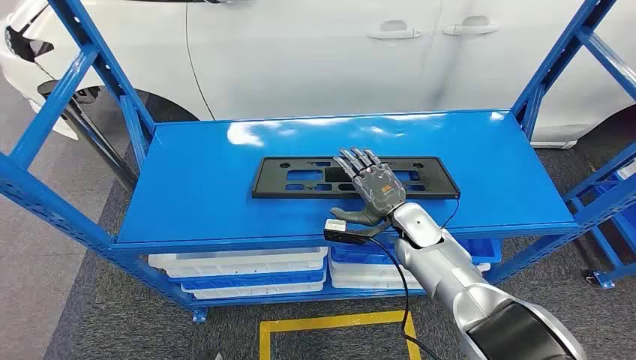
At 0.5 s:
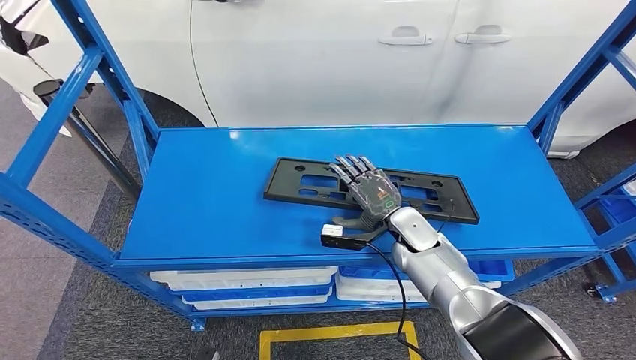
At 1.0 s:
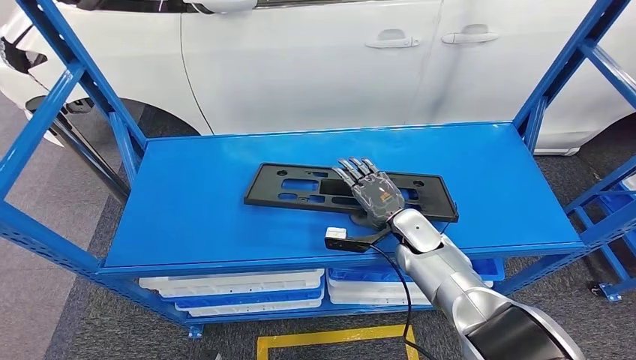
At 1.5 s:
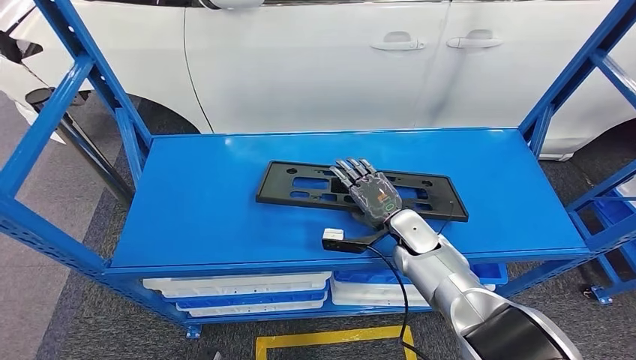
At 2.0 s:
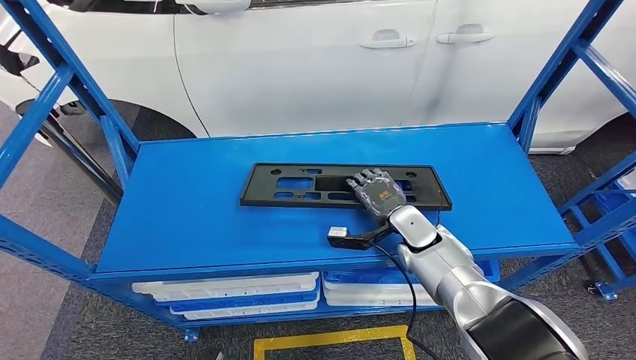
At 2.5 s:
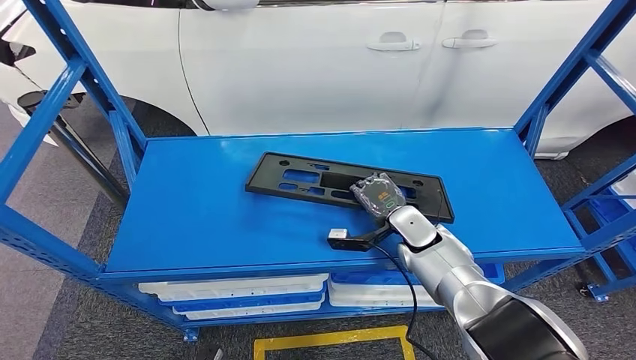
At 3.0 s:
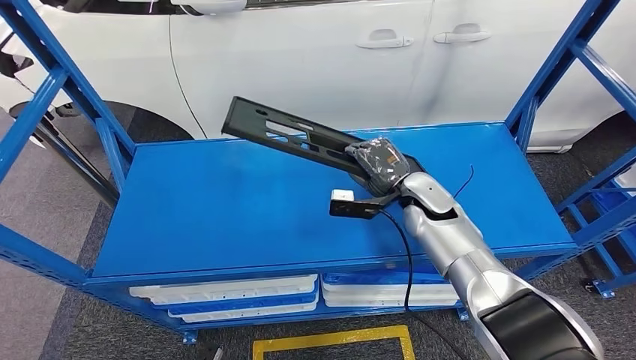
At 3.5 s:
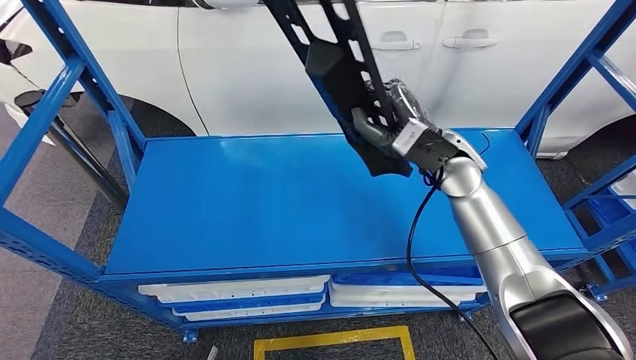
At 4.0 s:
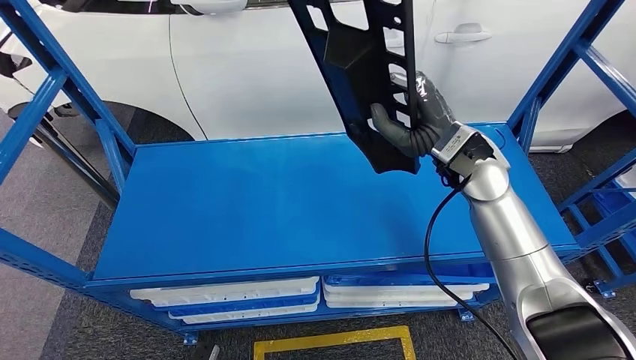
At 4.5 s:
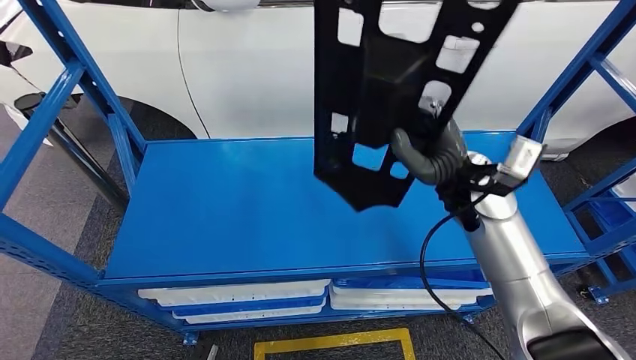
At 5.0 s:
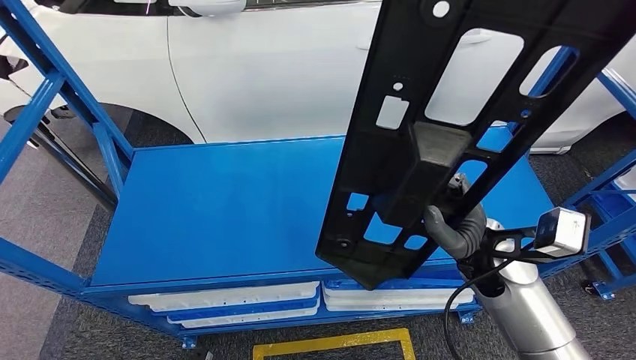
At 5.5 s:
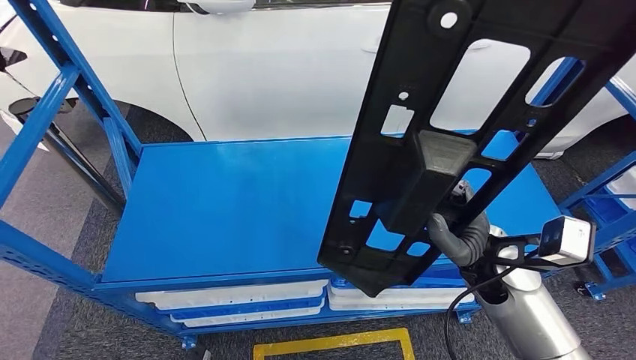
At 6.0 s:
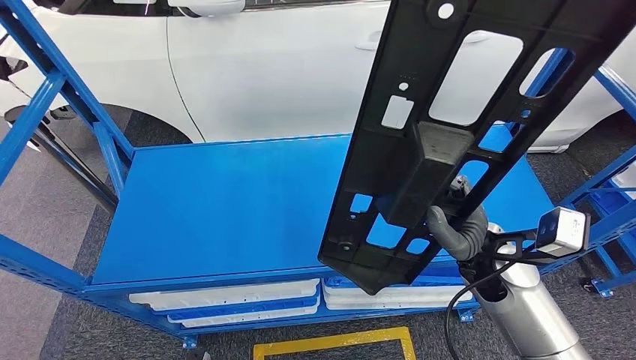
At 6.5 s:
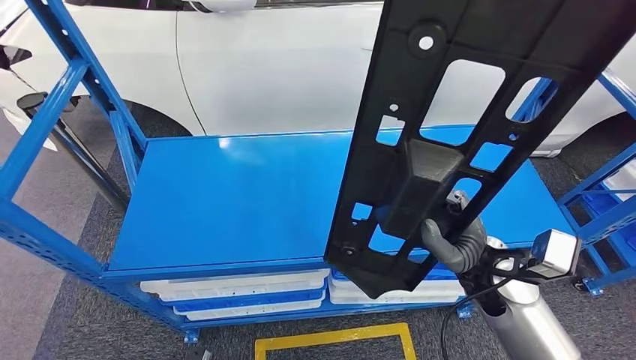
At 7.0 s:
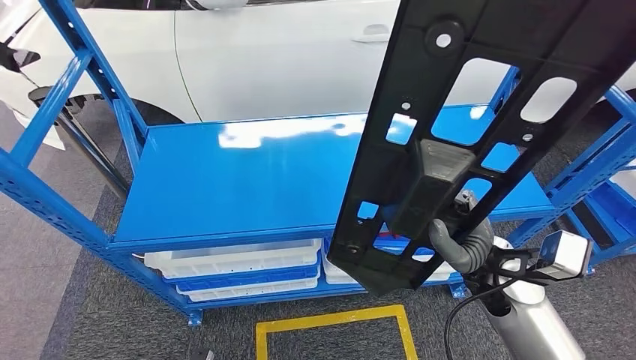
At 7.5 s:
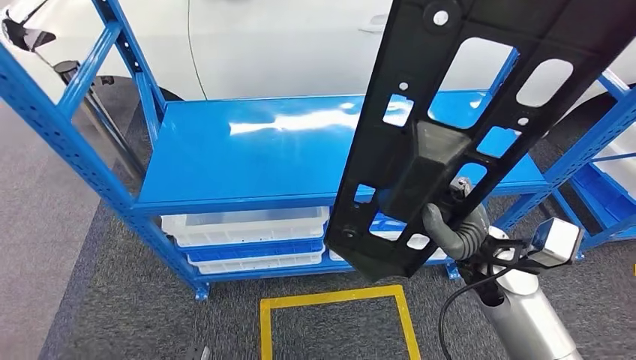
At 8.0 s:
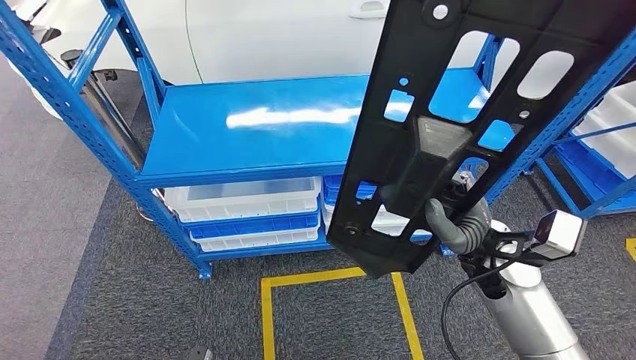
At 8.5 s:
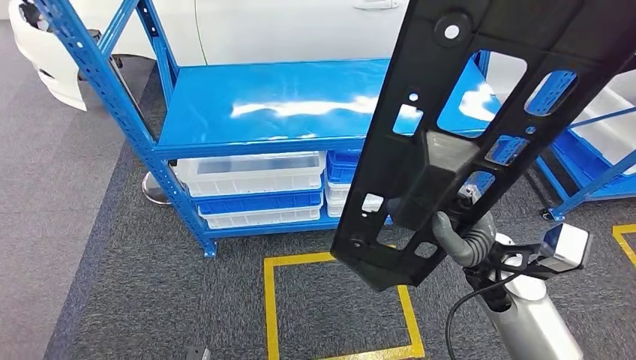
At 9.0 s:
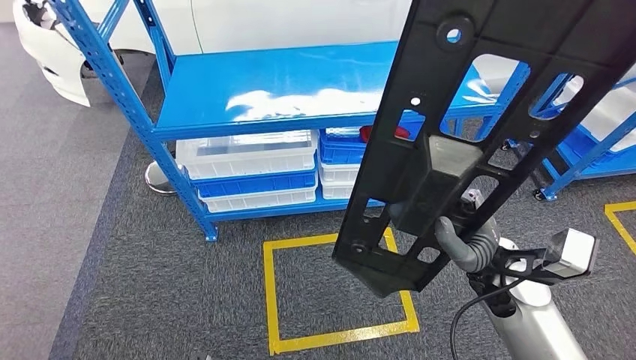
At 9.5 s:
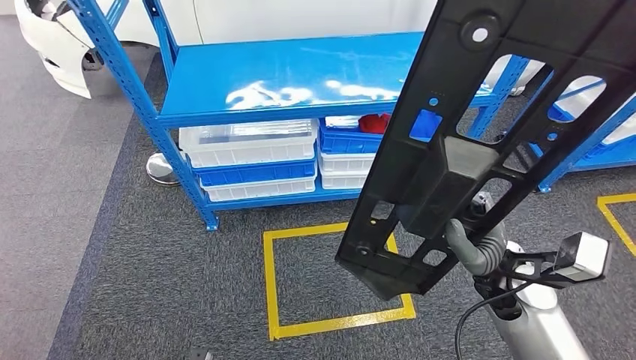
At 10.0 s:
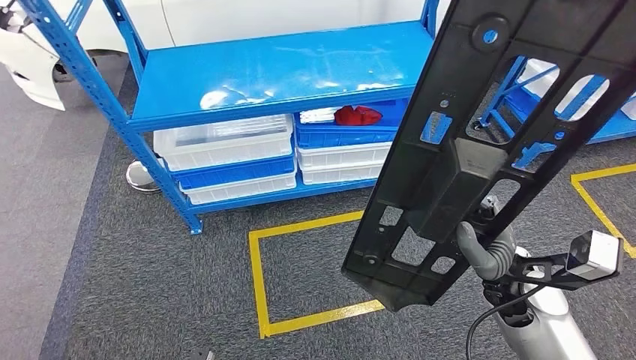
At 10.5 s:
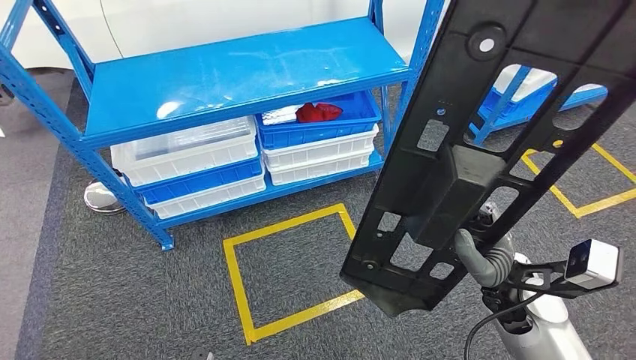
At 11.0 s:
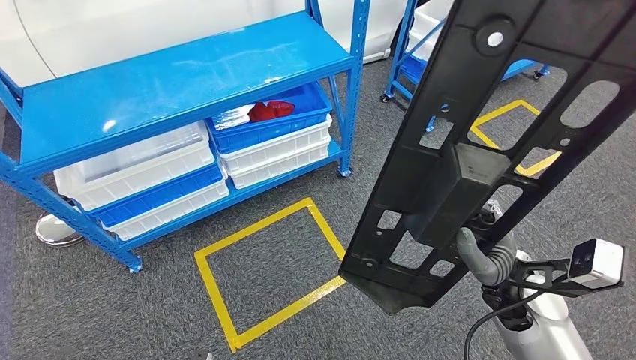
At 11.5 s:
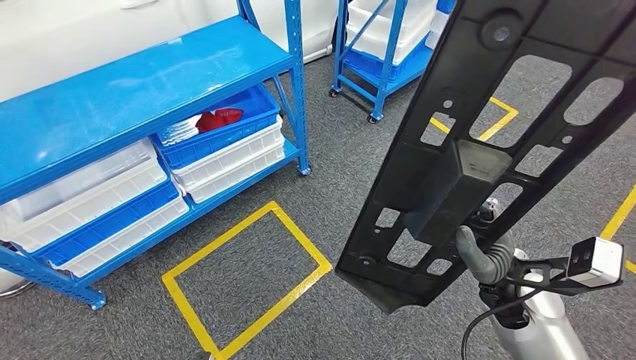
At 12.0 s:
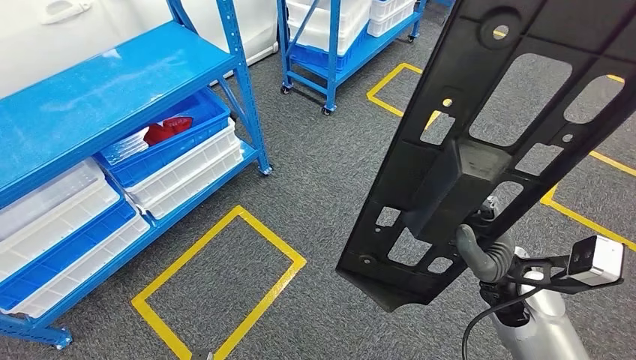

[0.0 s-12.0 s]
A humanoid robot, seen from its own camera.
Step, 0.0 to 5.0 s: Pick up the large material from the shelf.

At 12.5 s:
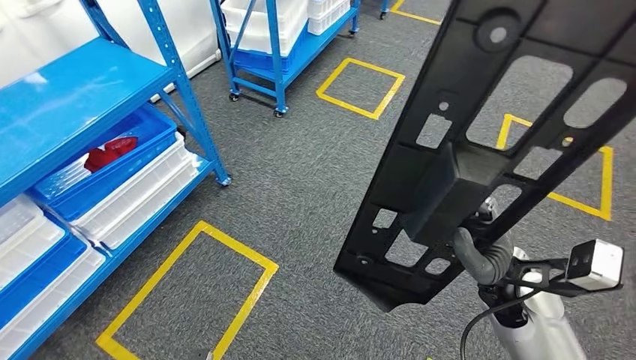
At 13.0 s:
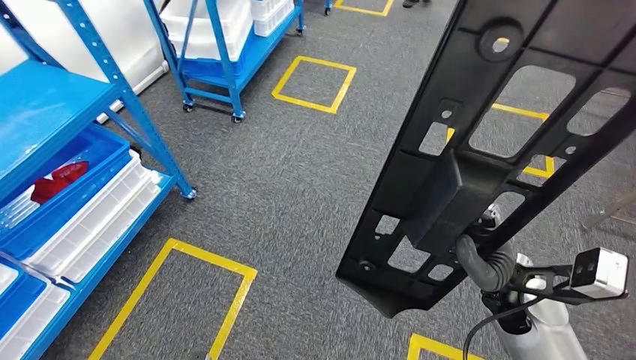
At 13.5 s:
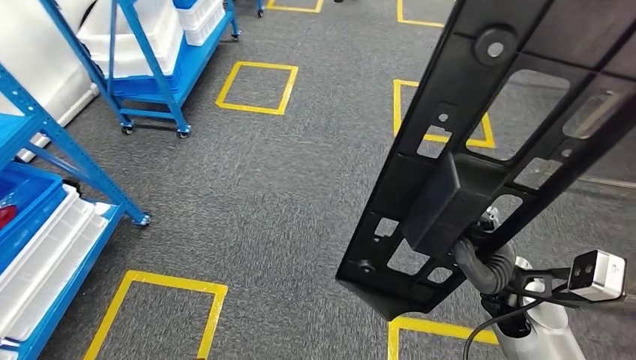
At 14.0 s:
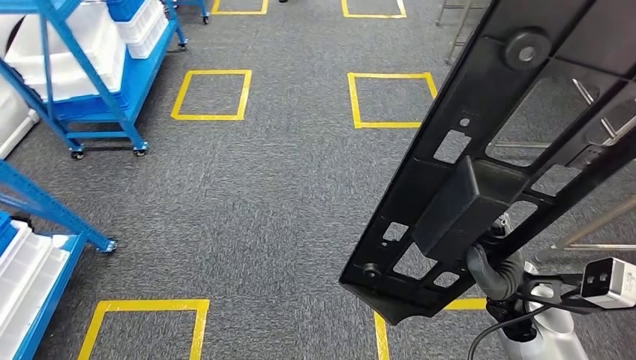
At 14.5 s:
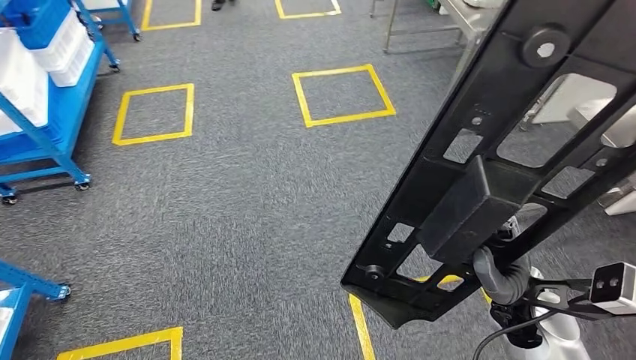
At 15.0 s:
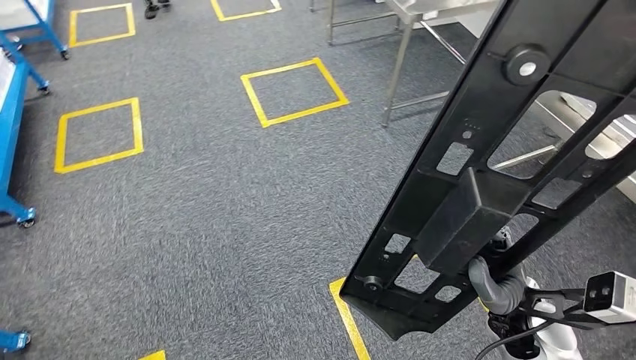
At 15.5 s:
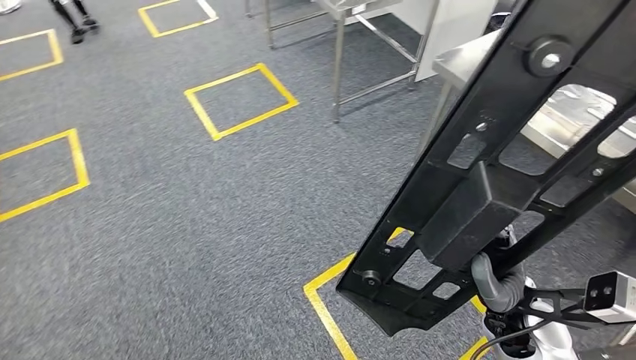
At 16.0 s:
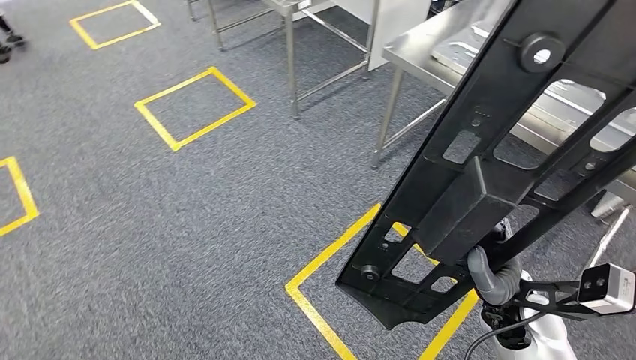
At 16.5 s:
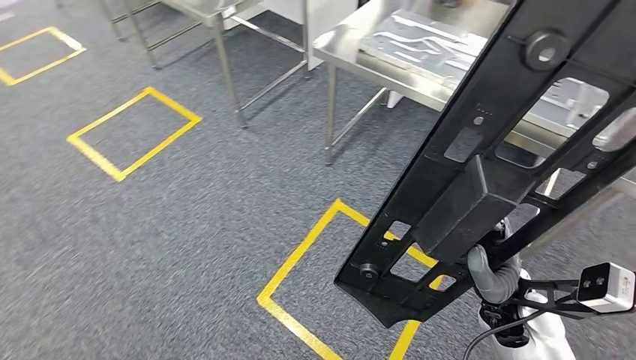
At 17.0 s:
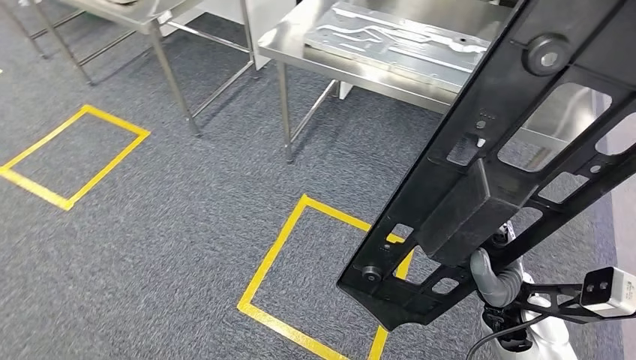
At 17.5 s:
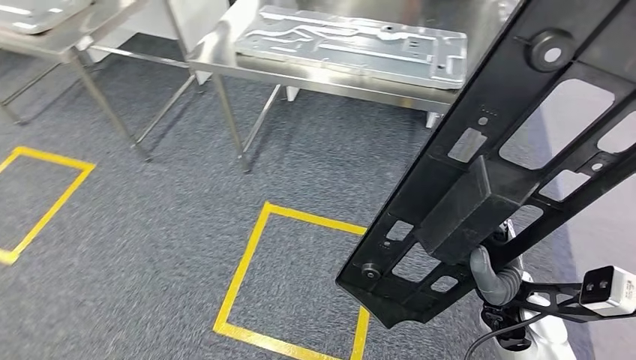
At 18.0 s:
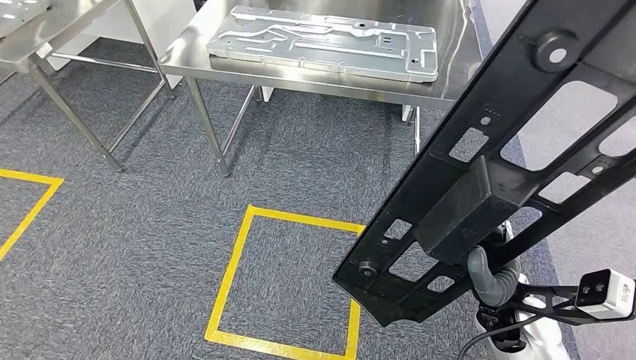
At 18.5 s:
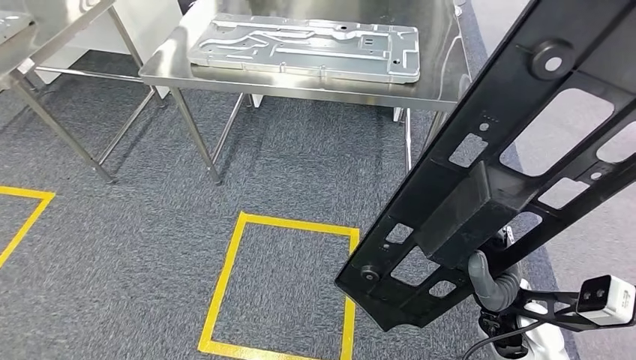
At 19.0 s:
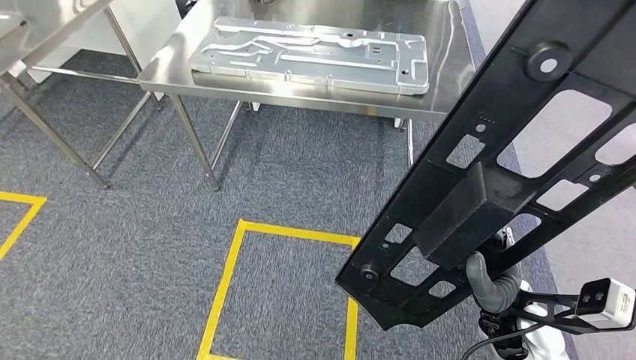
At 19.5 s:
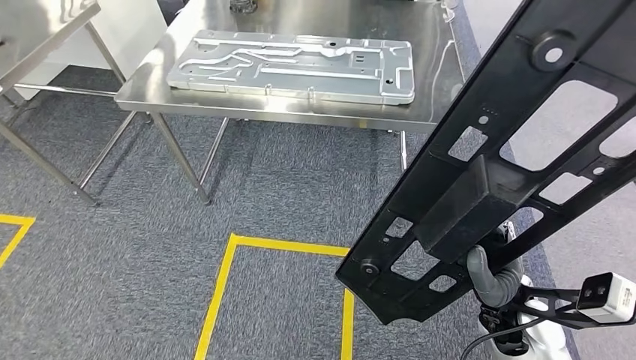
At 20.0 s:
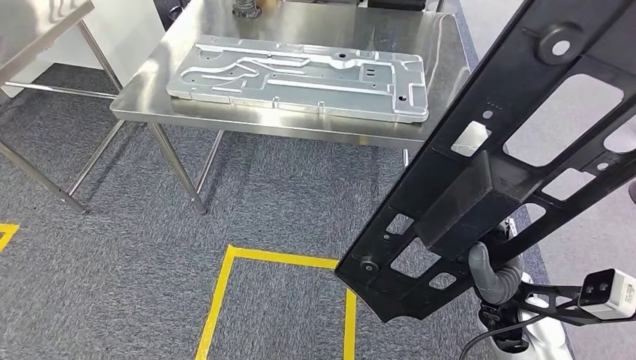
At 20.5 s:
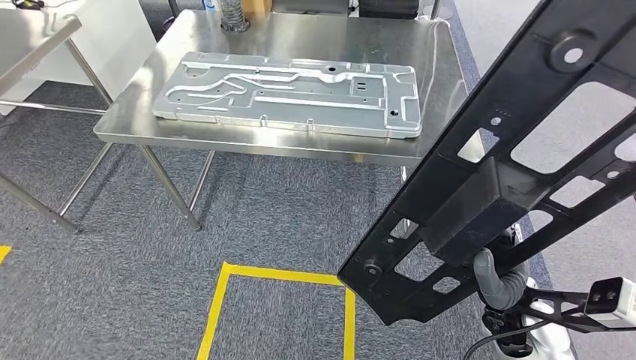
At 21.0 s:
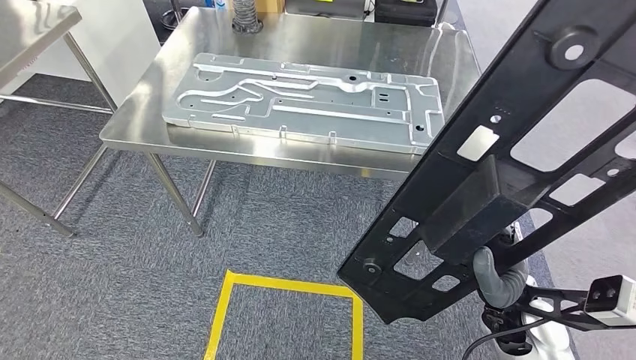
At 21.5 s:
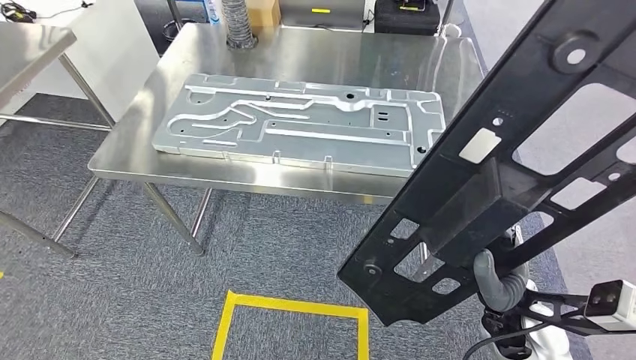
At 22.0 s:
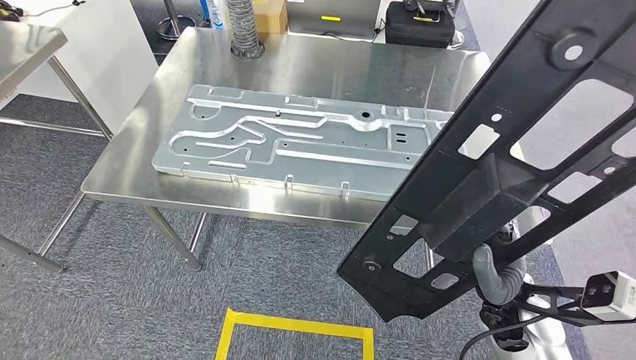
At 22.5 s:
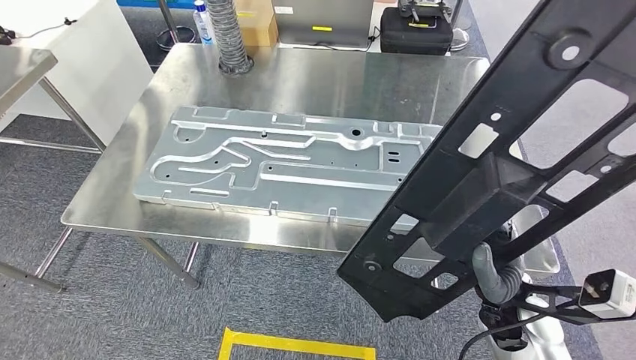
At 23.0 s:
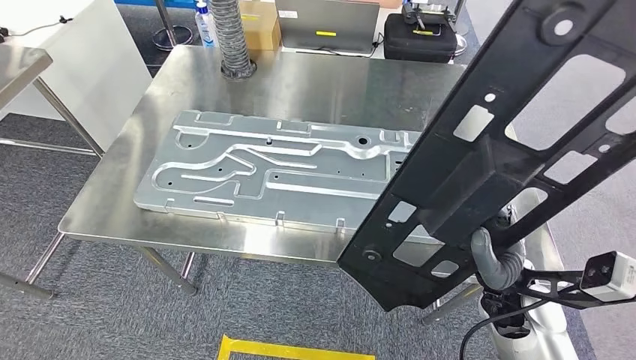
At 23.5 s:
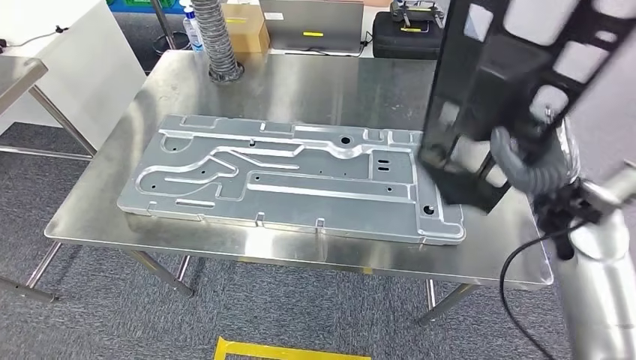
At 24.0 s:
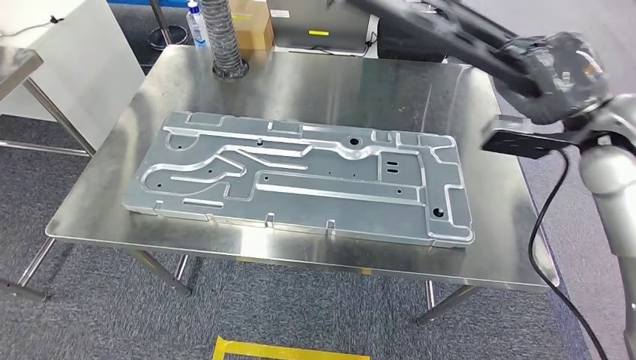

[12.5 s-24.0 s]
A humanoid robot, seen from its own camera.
Step, 12.5 to 19.0 s: Move the large material to the workbench.
